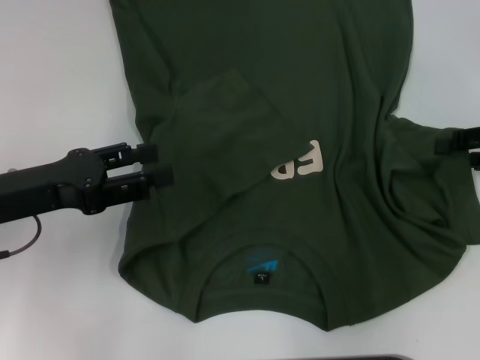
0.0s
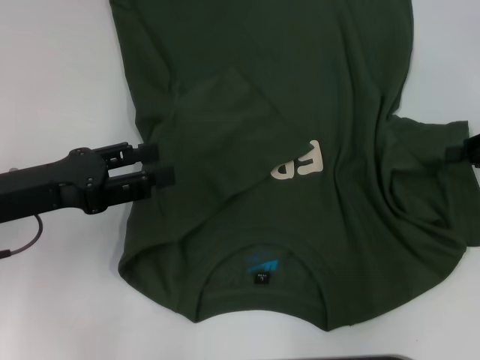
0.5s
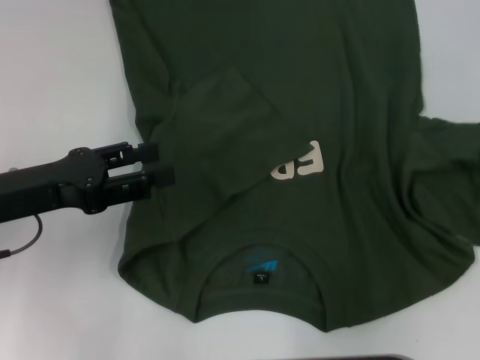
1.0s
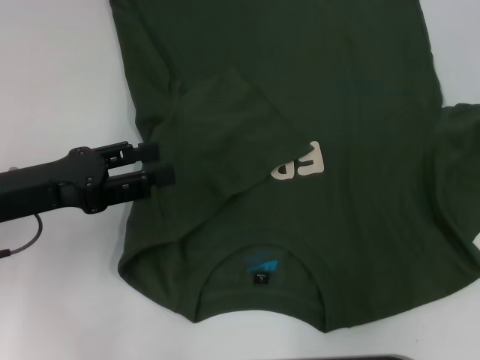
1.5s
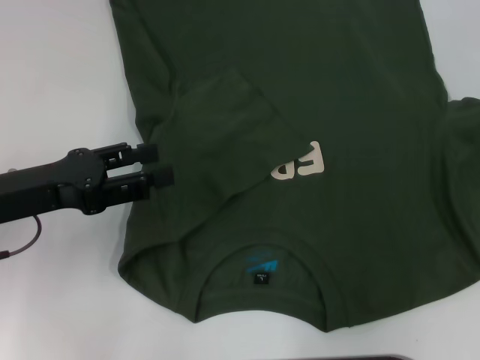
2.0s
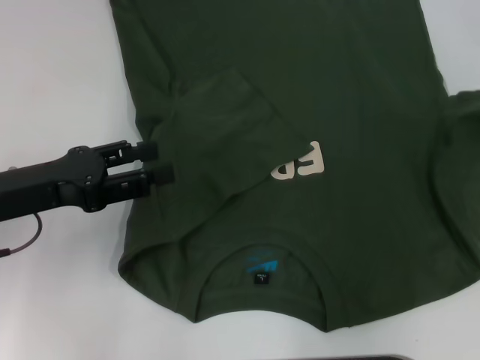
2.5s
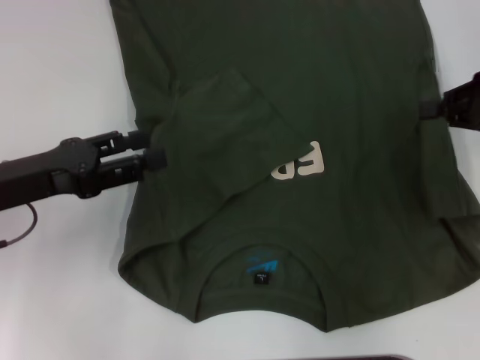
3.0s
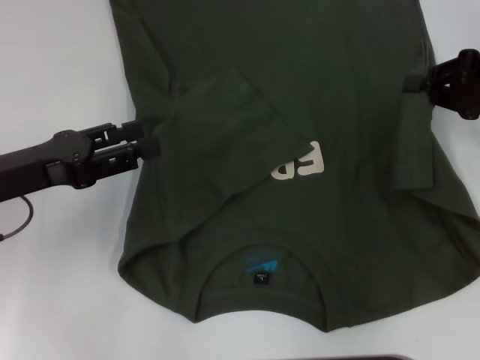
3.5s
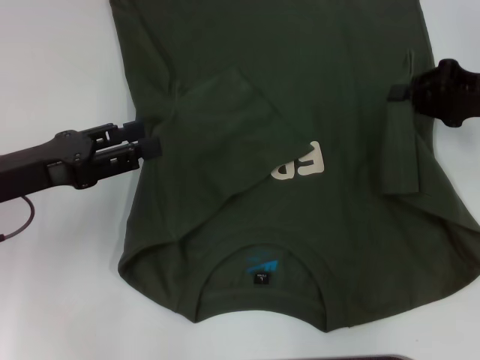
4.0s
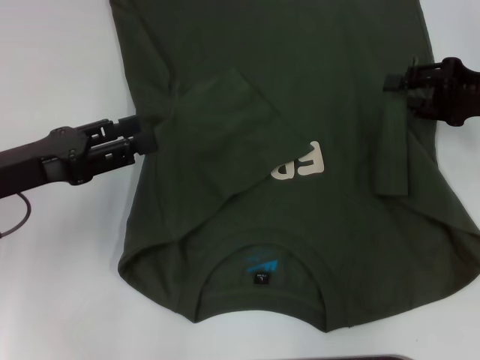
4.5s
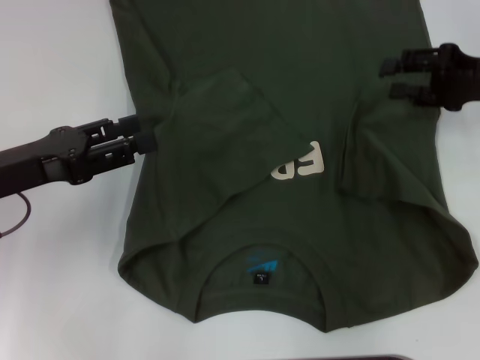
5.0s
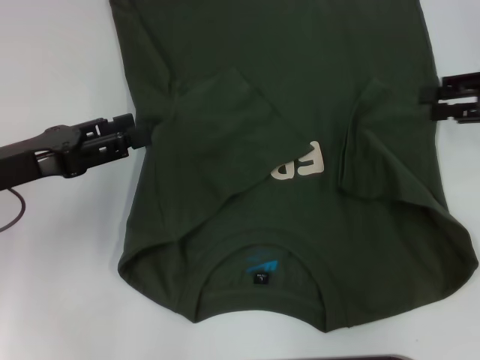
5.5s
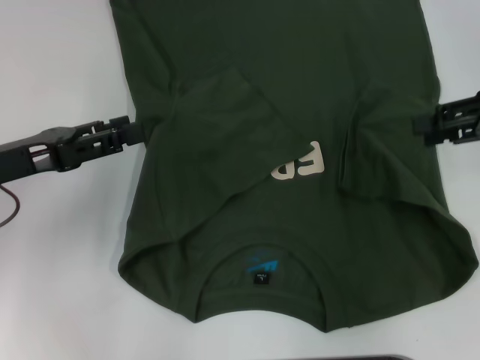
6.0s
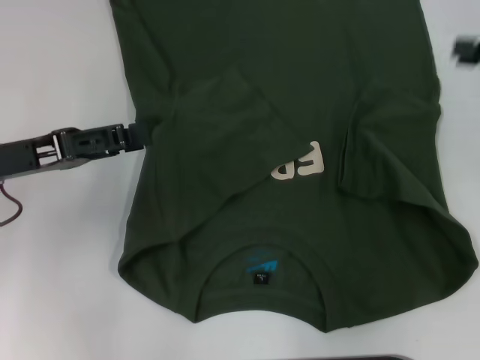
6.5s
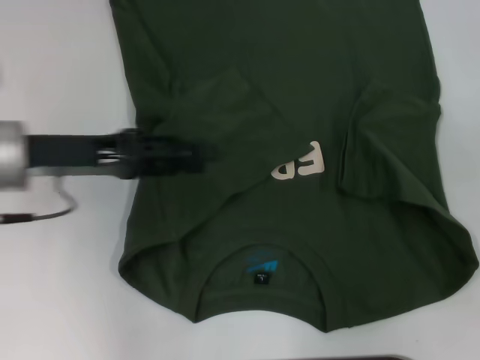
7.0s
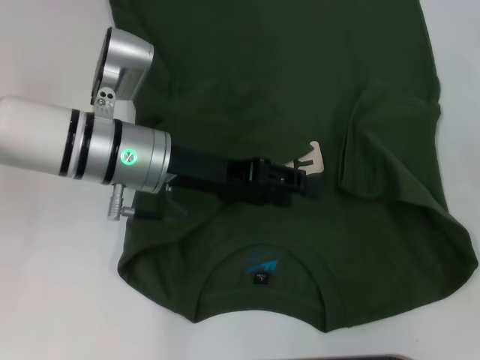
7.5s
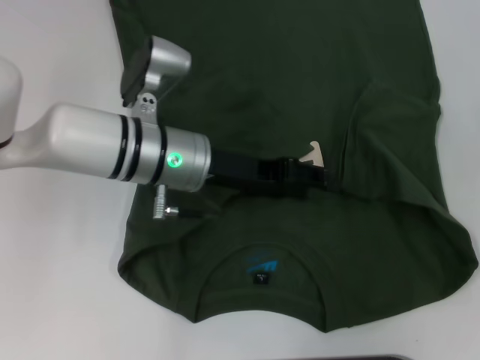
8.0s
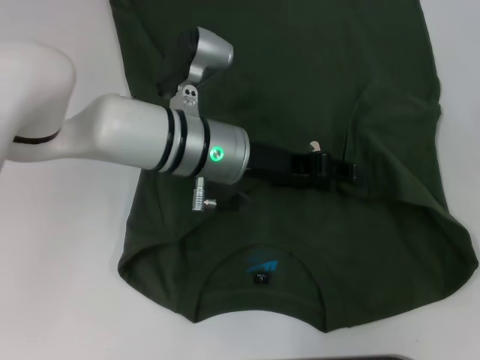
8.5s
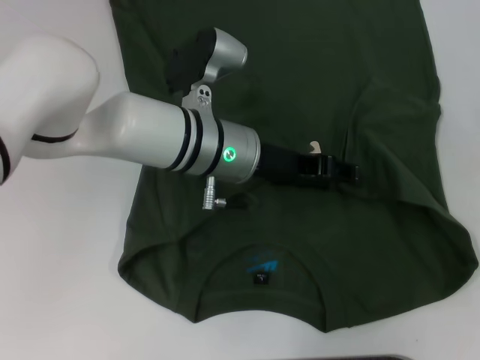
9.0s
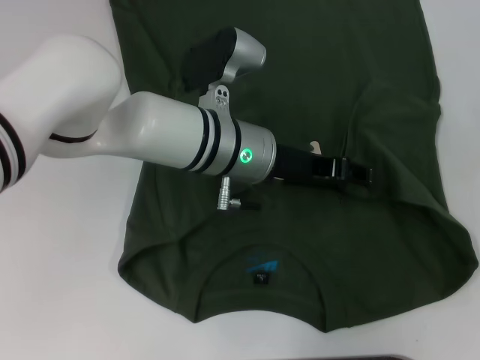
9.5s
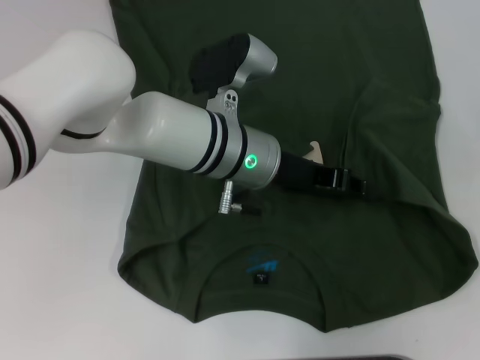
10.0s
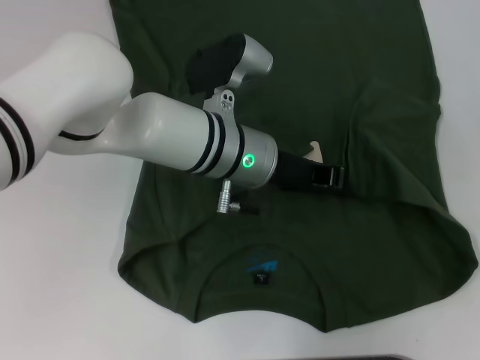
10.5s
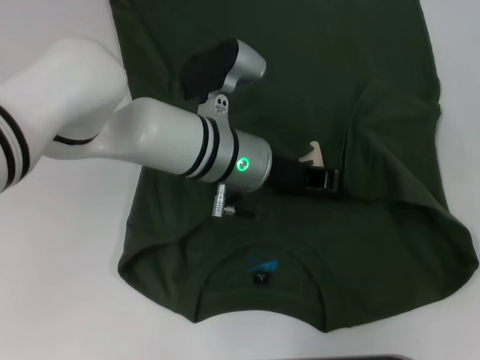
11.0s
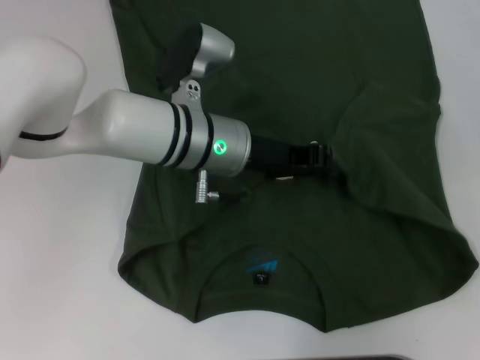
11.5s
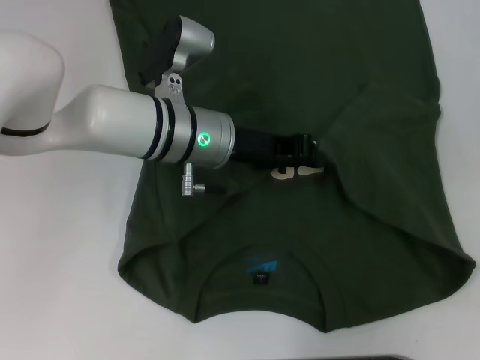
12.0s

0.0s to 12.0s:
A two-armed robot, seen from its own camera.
Step, 0.0s to 4.5s: Fold the bottom right sleeve with your right hand.
0.0s to 2.0s: The right gripper is displaced upward and to the right by approximately 10 cm, and closes up.
2.0s to 4.0s: The right gripper goes about 10 cm to the left and downward.
4.0s to 6.0s: The right gripper moves some 5 cm, and opens.
6.0s to 8.0s: The right gripper travels to the right and backward by about 10 cm, while the left gripper moves to the right, approximately 20 cm.
8.0s to 10.0s: The left gripper moves to the right, some 5 cm.
10.0s to 12.0s: The left gripper closes its fingers.

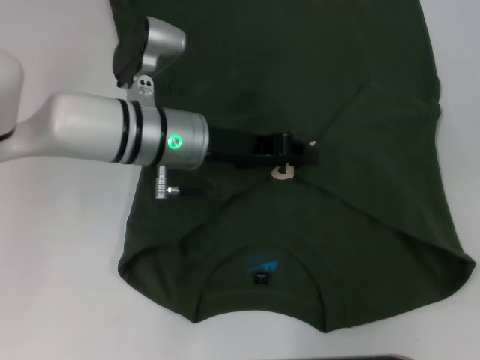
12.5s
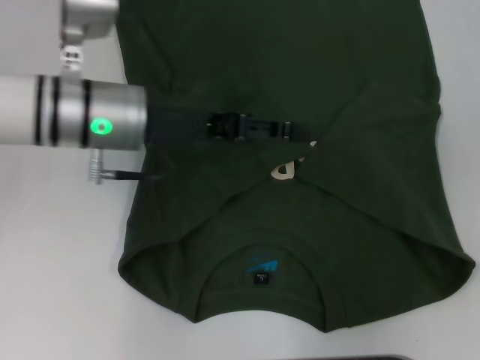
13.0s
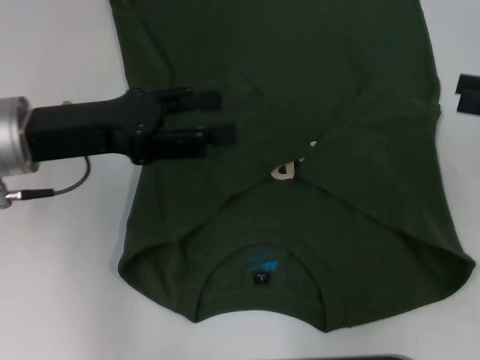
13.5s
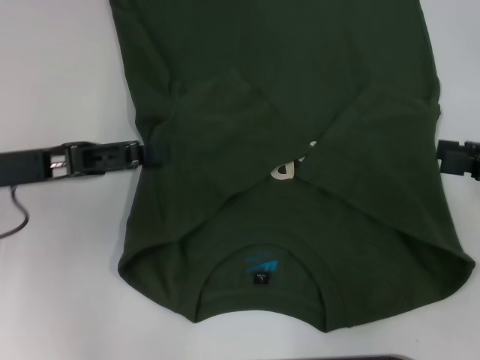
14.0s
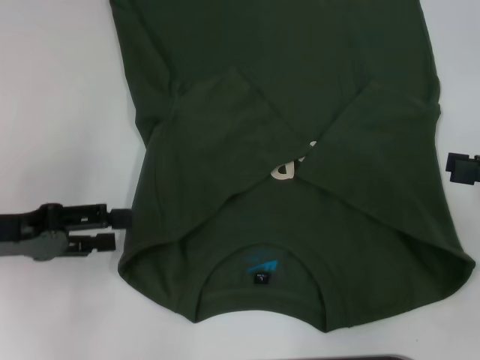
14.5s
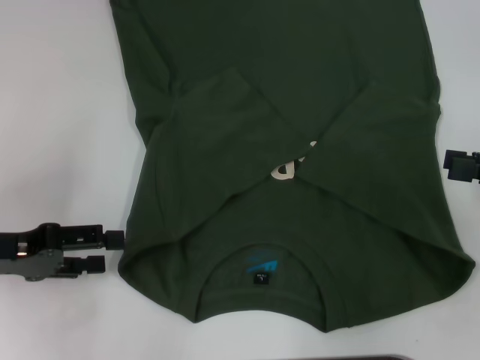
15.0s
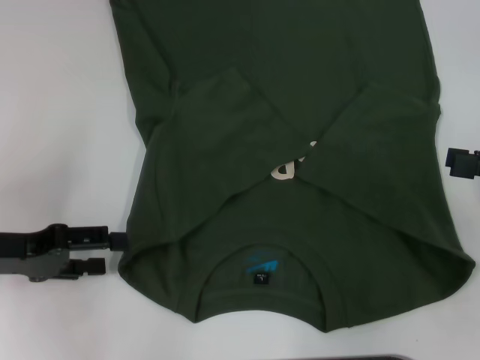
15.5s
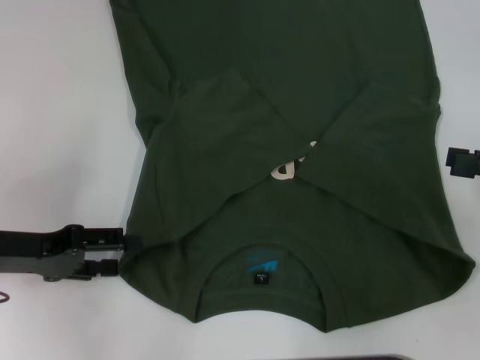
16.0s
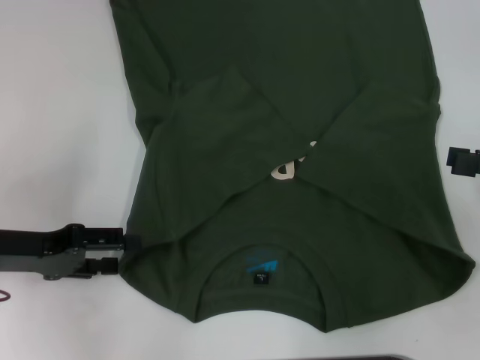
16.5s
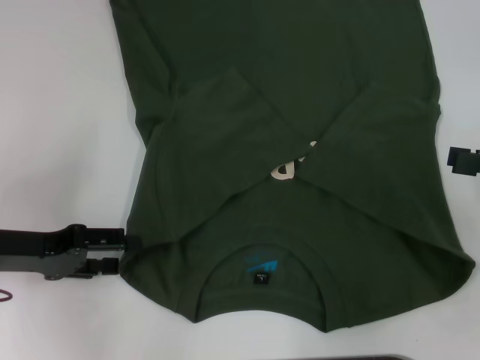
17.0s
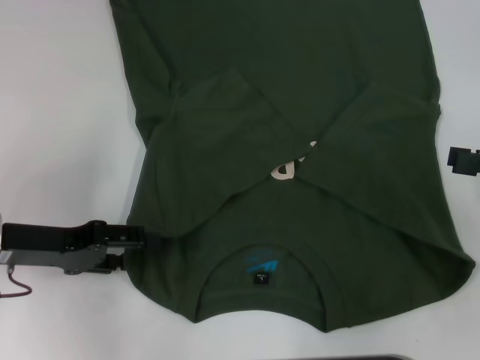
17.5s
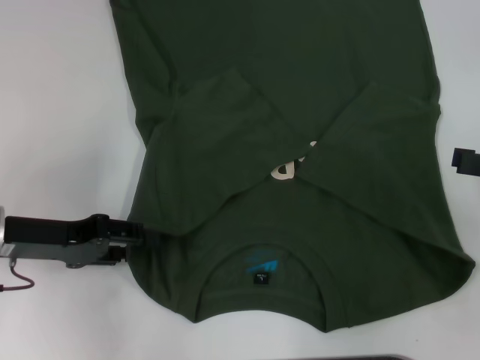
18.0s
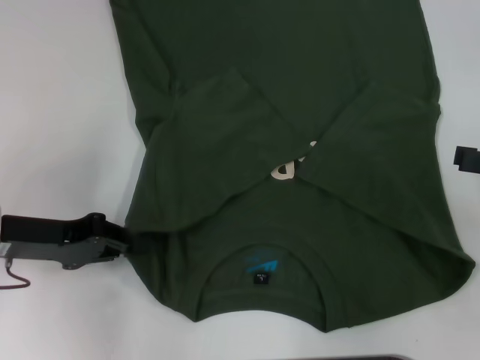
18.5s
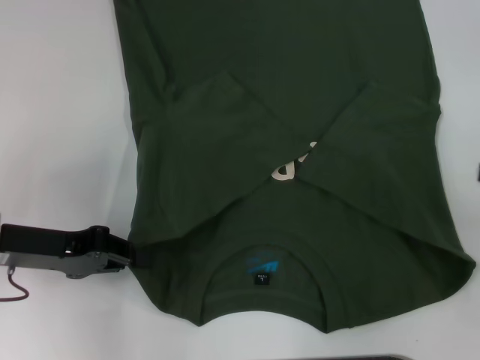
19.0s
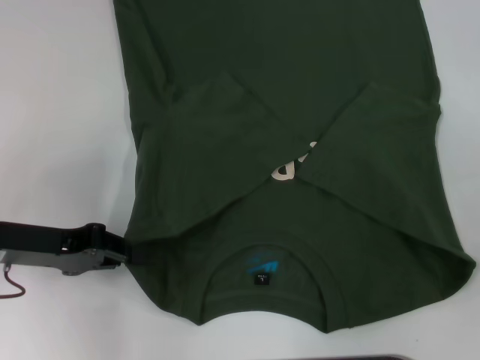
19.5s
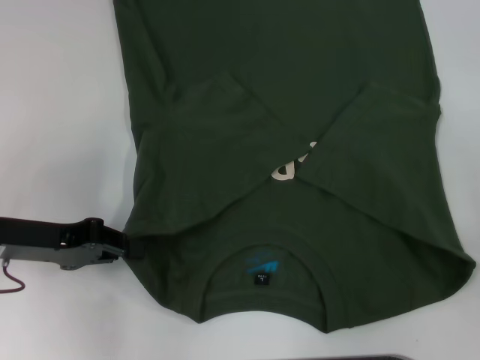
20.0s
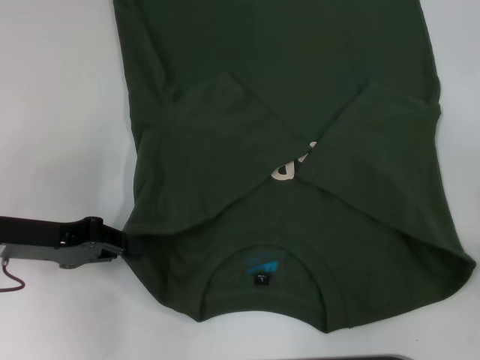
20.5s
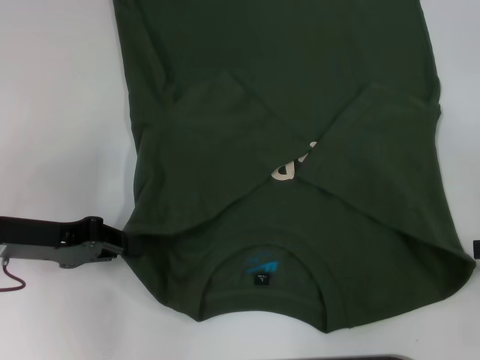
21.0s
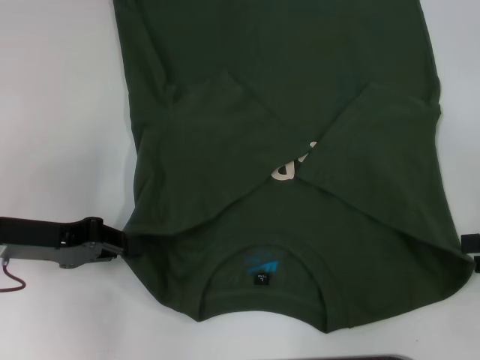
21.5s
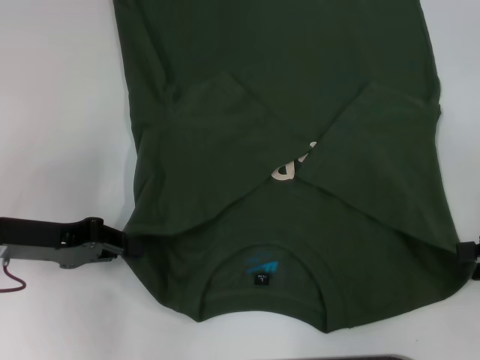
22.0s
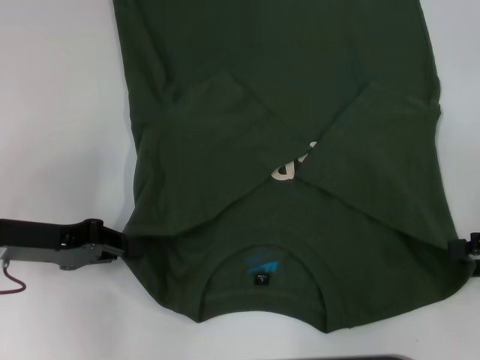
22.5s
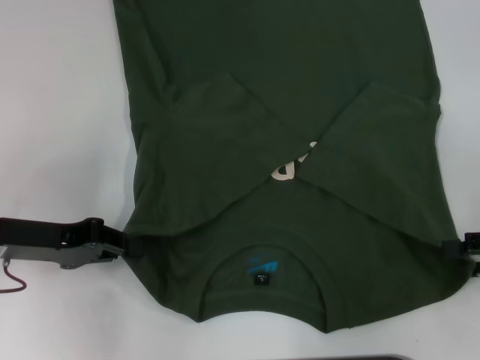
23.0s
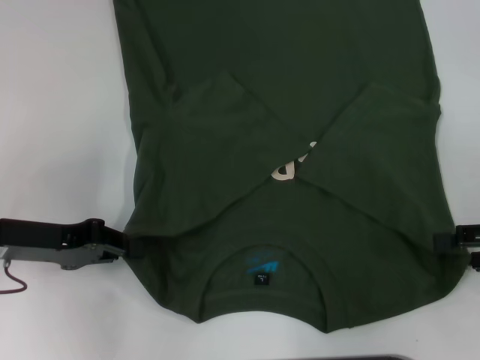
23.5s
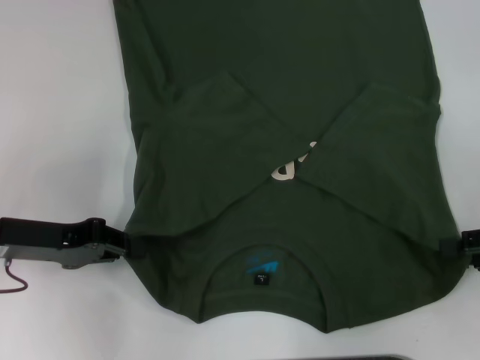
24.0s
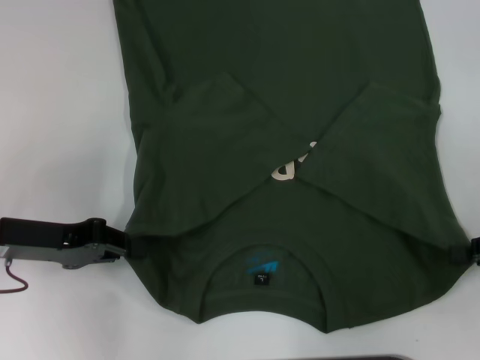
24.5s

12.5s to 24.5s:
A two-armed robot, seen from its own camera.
Step, 12.5s to 18.0s: Grab the bottom left corner with your left hand.
12.5s to 14.5s: The right gripper is displaced backward and to the left by approximately 5 cm. Meanwhile the left gripper heads to the left and backward, covering about 25 cm, and opens.
14.5s to 16.5s: The grippers make only small movements.
16.5s to 18.5s: The left gripper closes.
18.5s to 20.5s: The right gripper shifts by roughly 5 cm.
20.5s to 22.5s: There are only small adjustments of the grippers.
22.5s to 24.5s: The right gripper closes.

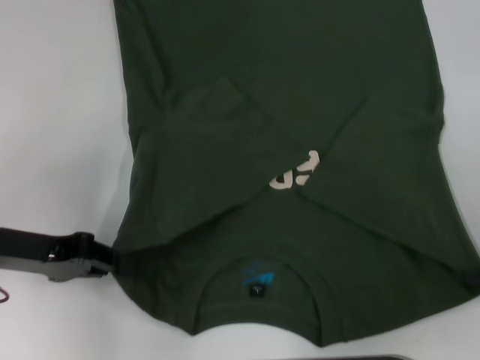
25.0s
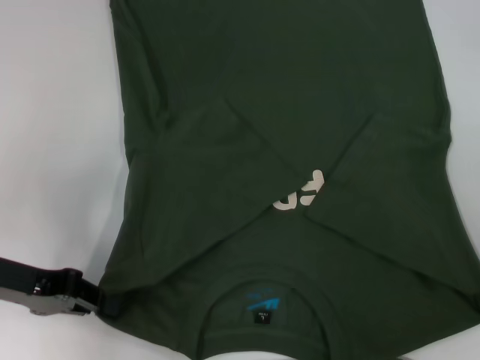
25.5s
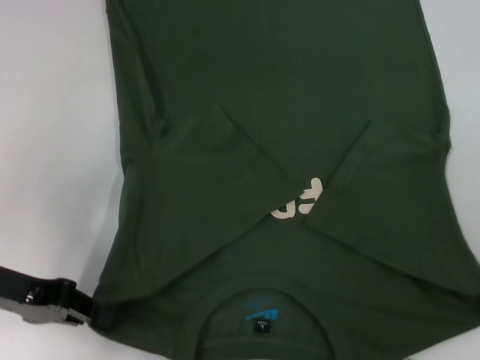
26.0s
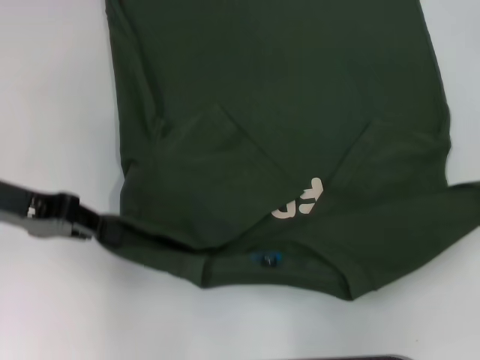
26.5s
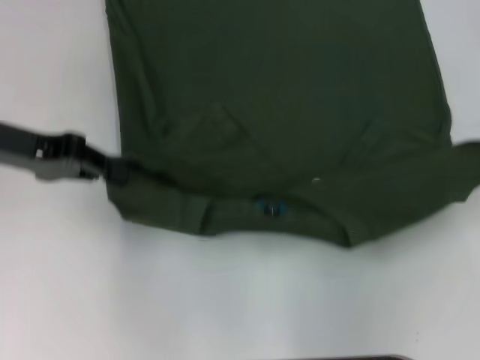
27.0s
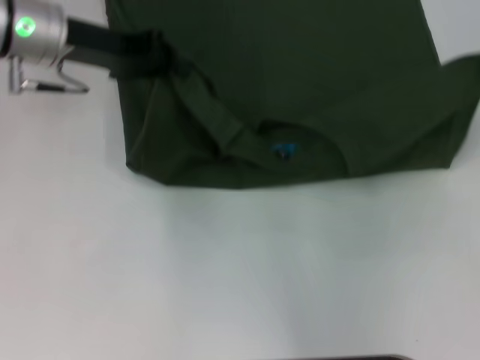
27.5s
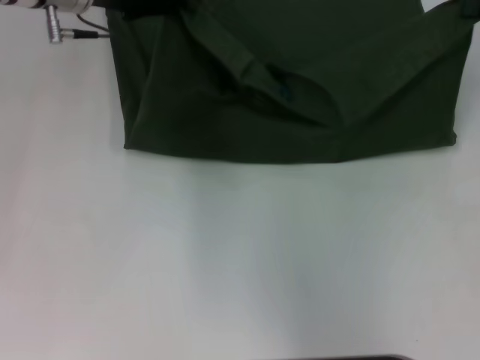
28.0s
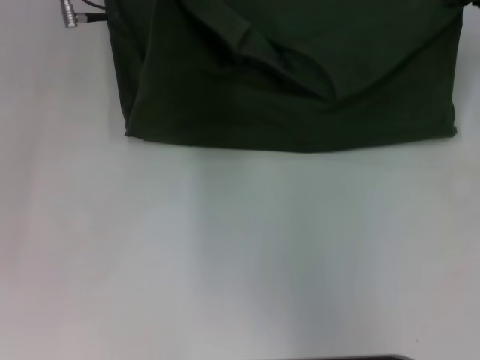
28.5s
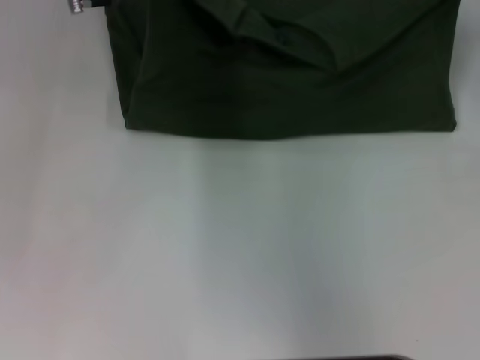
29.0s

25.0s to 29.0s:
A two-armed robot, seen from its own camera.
25.0s to 27.0s: Both grippers travel together upward and forward, about 10 cm.
27.0s to 29.0s: The left gripper is displaced forward and to the right by approximately 20 cm; the right gripper moves forward, some 15 cm.
